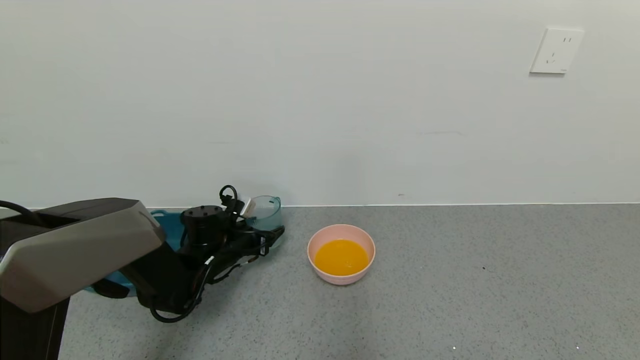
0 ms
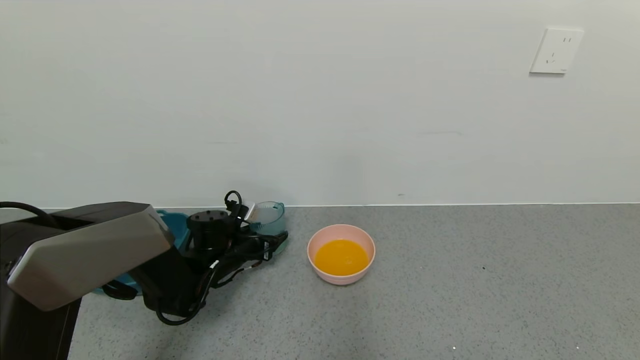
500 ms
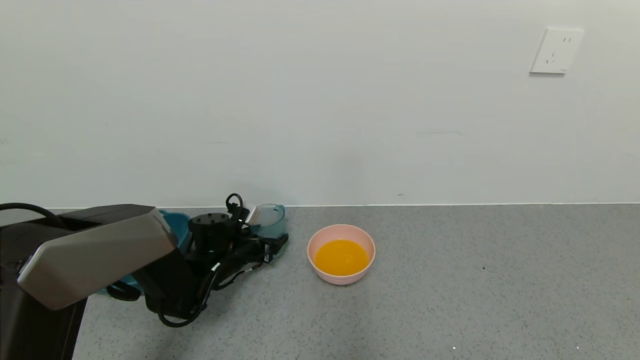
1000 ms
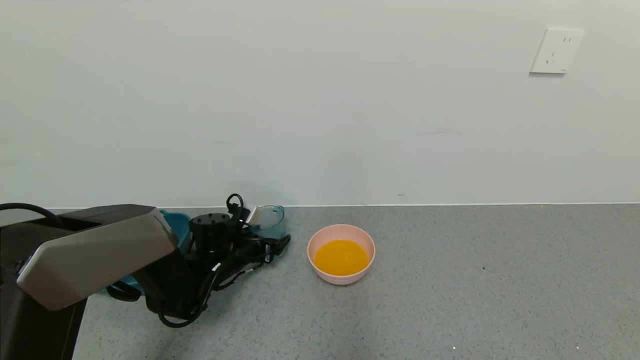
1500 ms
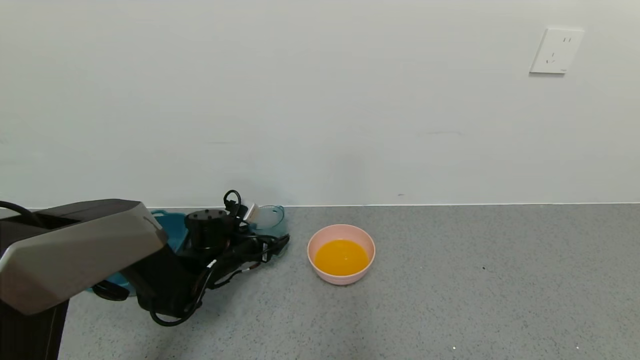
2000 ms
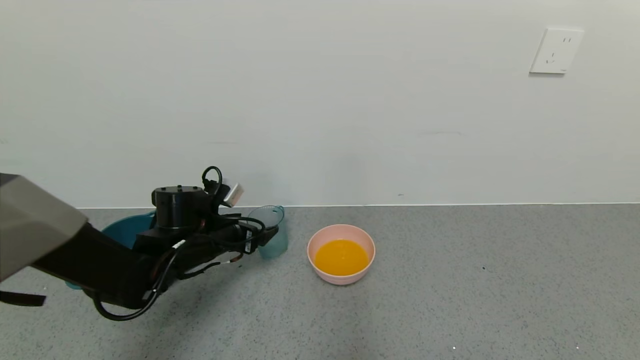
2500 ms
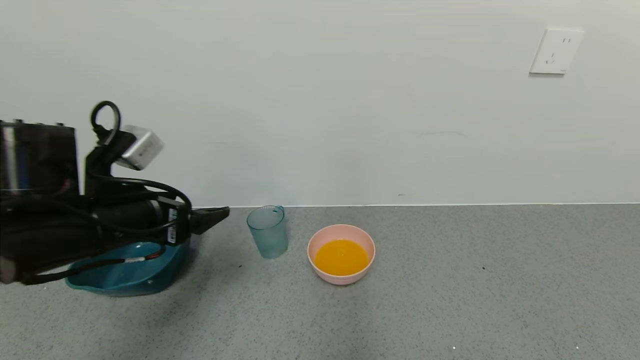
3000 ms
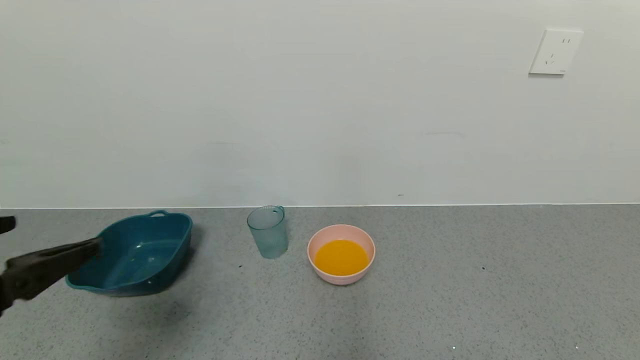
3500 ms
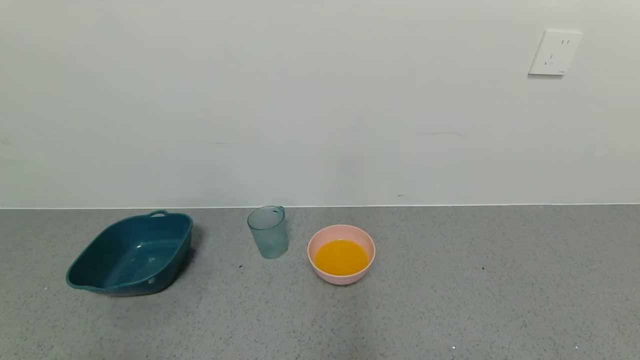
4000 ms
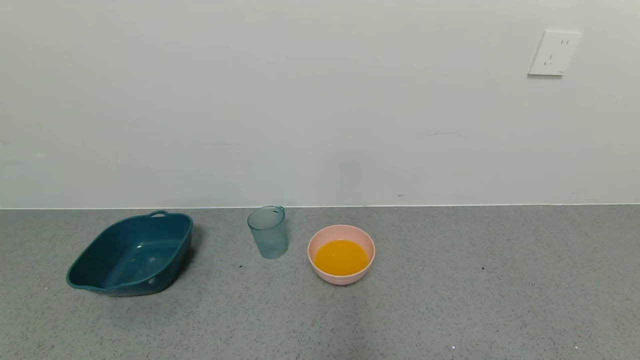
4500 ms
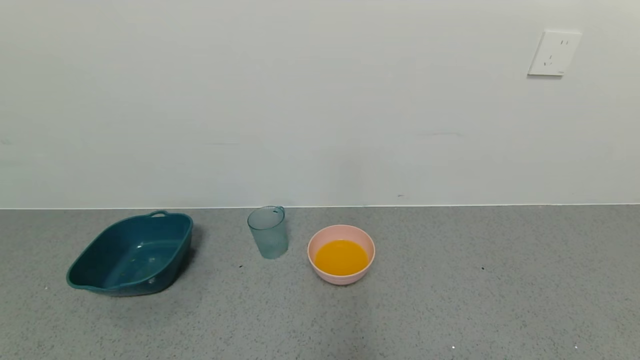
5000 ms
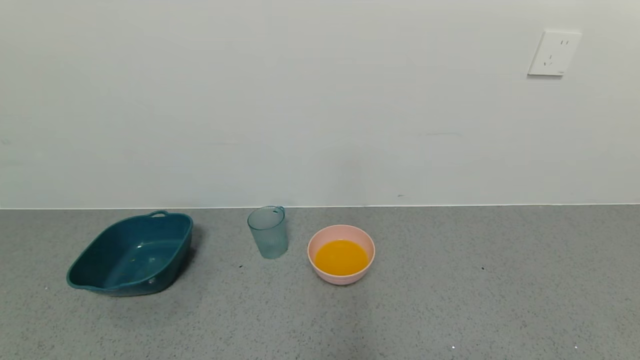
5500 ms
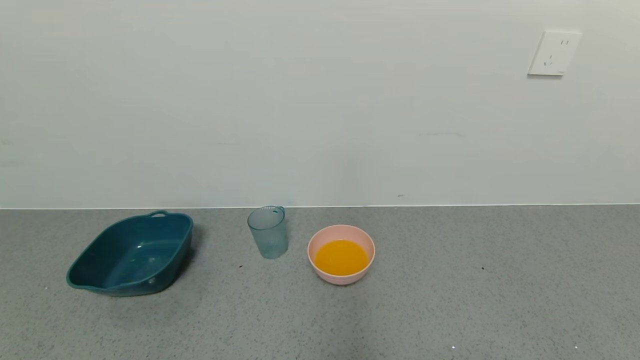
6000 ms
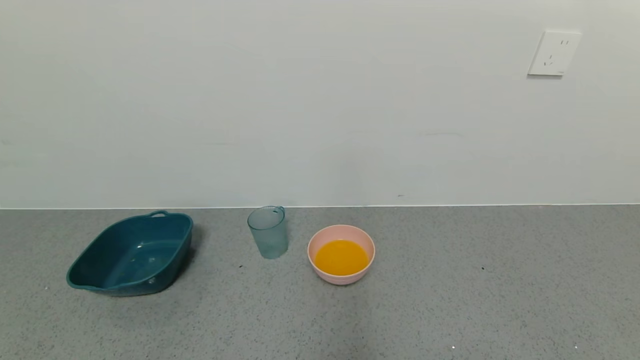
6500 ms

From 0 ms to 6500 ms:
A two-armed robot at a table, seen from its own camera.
Task of the whole recording: use a gripper to pick up the cup and pour the liquid into a bowl or tray.
From 0 ms to 2000 ms: The left gripper opens up.
From 2000 ms to 4500 ms: The left gripper shifts some 50 cm backward and upward.
